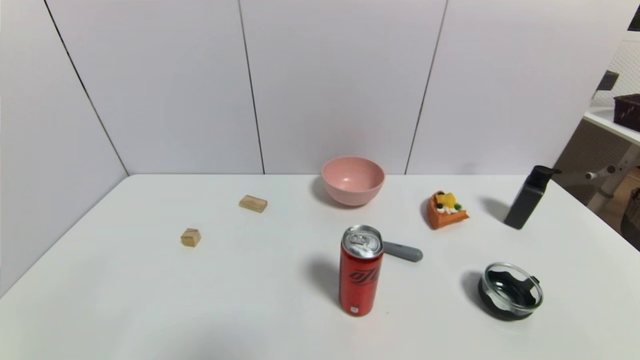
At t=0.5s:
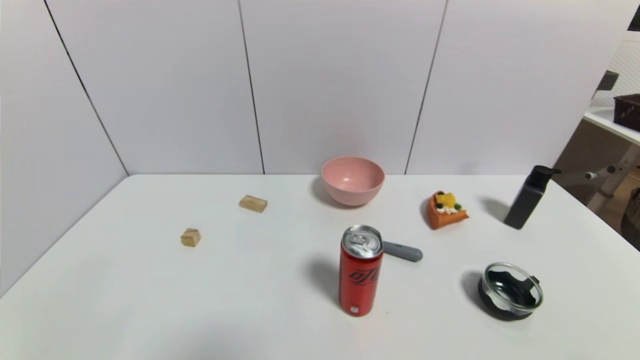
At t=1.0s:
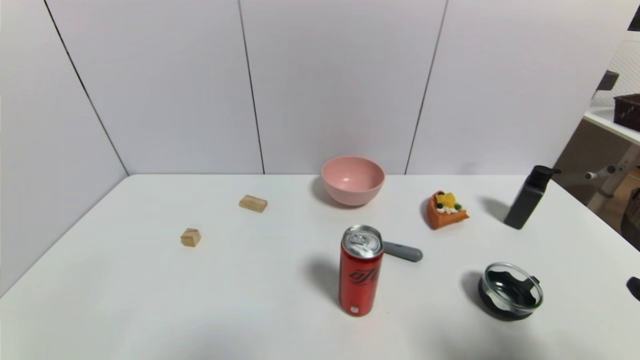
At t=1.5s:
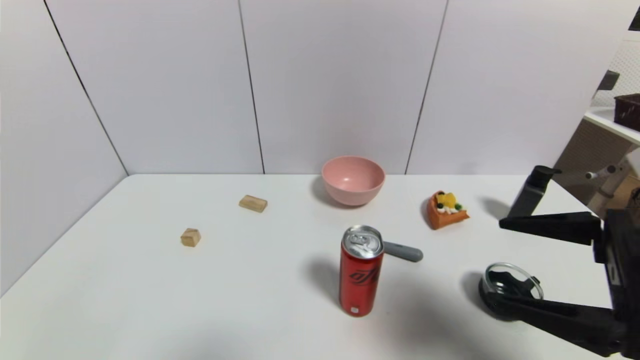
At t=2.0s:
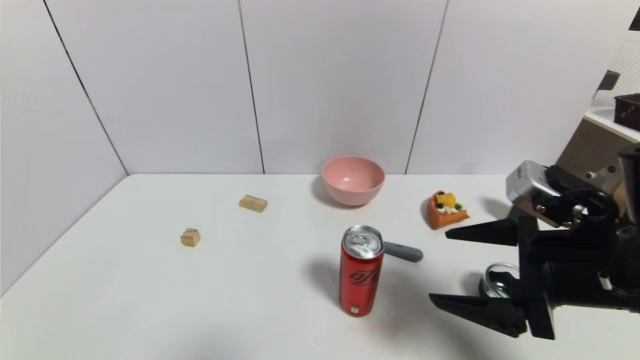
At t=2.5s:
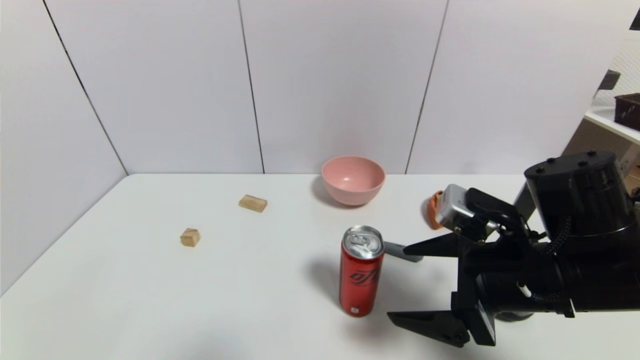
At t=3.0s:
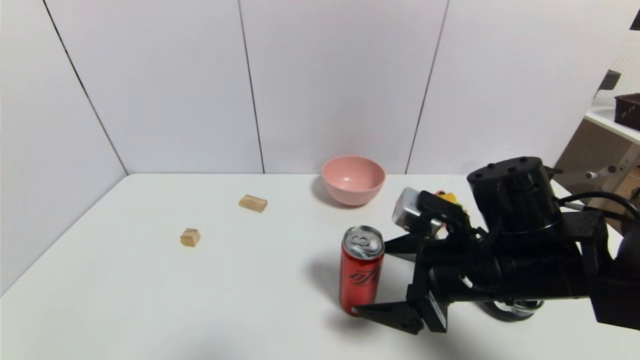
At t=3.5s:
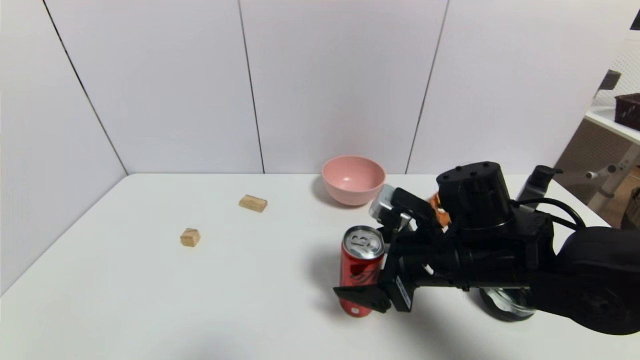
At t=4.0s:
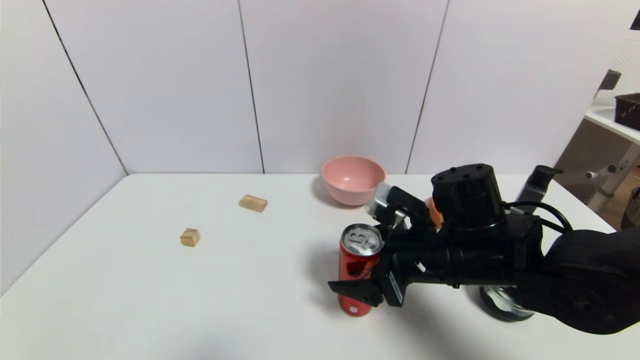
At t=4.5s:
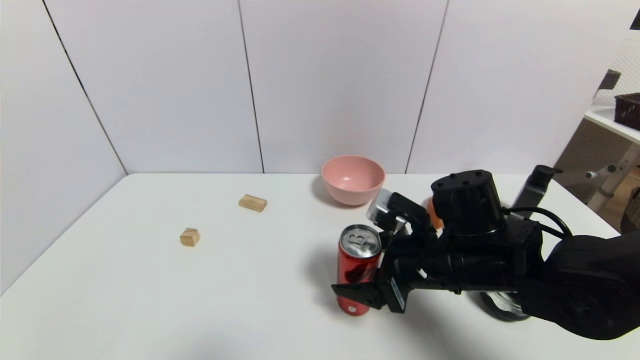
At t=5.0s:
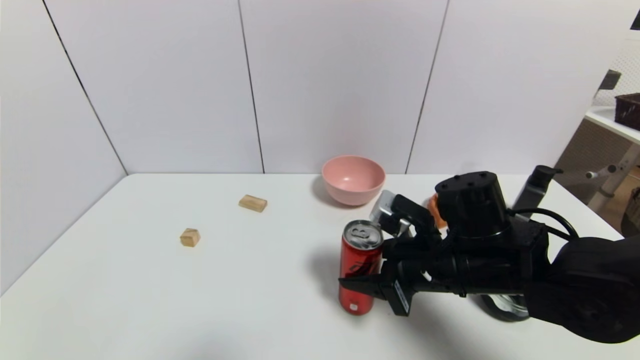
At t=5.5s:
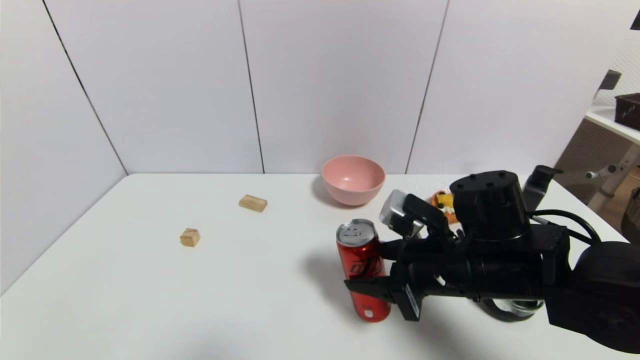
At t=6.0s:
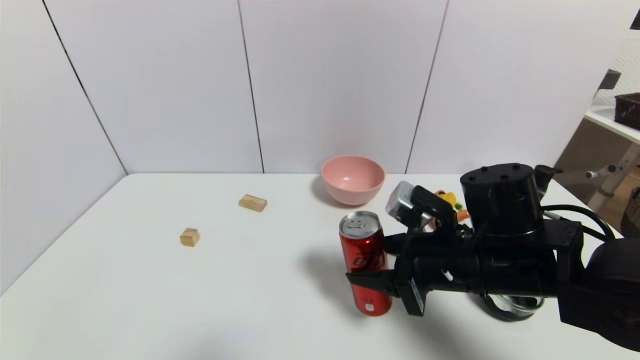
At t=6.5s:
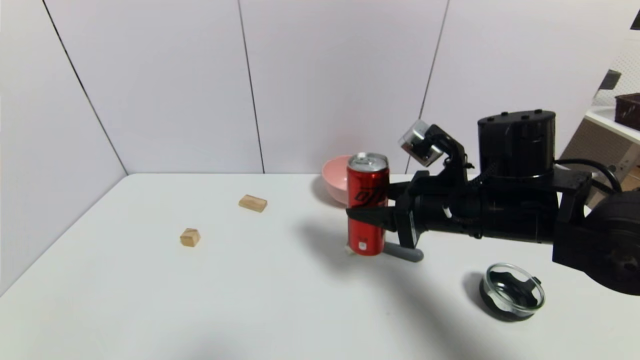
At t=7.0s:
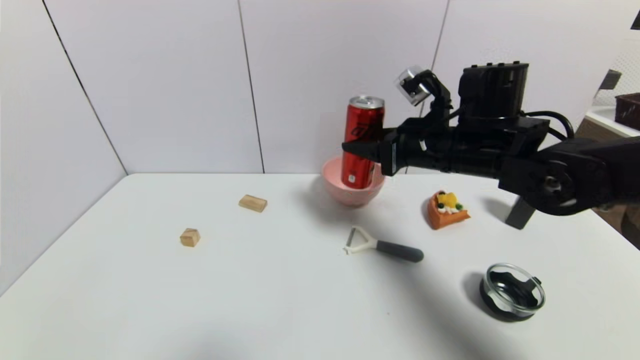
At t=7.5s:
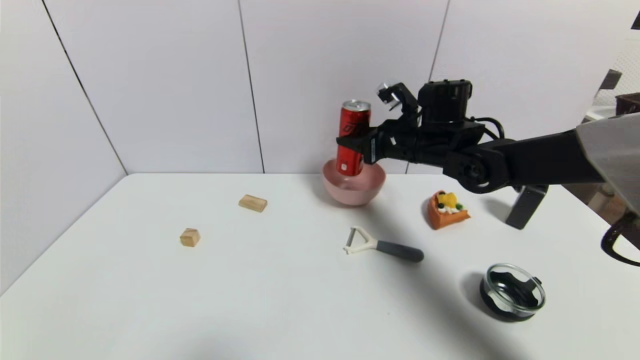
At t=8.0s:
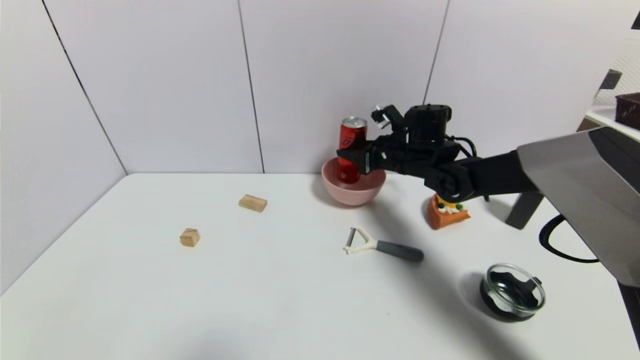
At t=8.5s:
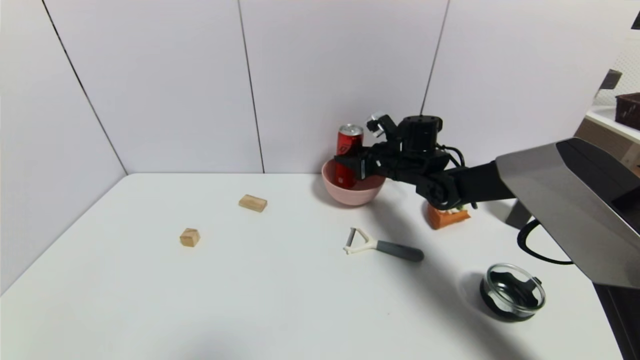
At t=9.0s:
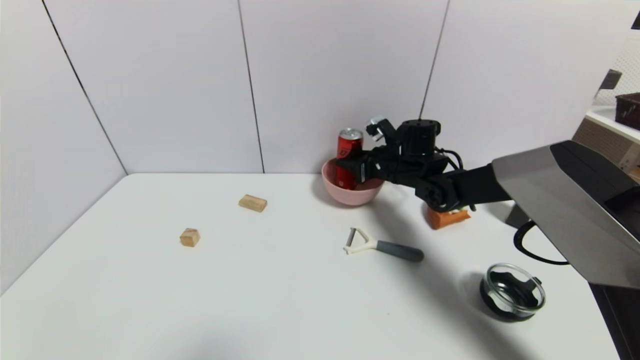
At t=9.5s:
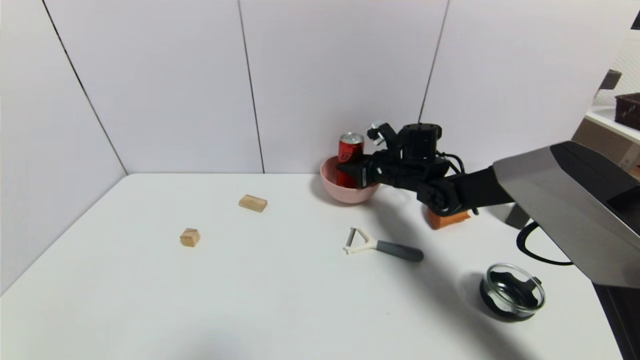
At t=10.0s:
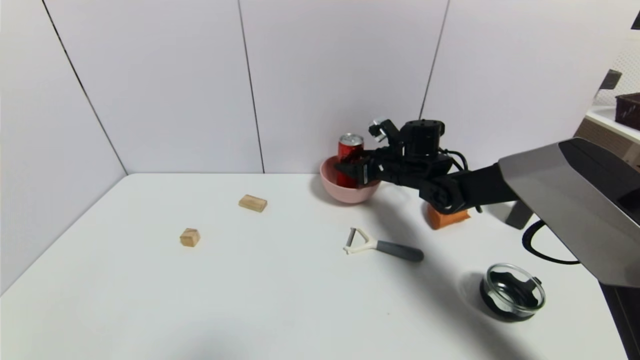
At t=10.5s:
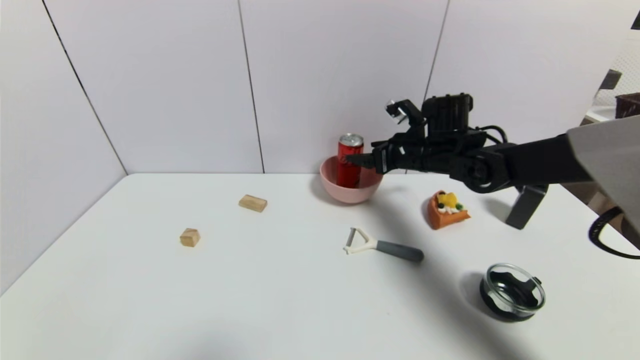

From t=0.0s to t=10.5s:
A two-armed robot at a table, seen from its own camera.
Task of the whole recording: use a gripper to pick the target object and place on the pink bowl.
Step, from t=0.0s to t=4.5s: Grasp the coke with the right gripper.
Step, from t=5.0s to t=10.0s: Place the coke on the pink bowl with the right gripper.
From t=0.0s to t=2.0s: The right gripper moves forward, upward and to the left, roughly 25 cm.
From t=2.0s to t=4.0s: The right gripper travels to the left, forward and downward by roughly 15 cm.
From t=4.0s to t=6.5s: The right gripper is displaced upward by approximately 5 cm, and closes.
From t=6.5s to t=8.5s: The right gripper goes some 20 cm forward.
From t=8.5s to t=10.5s: The right gripper changes place by approximately 5 cm, and opens up.

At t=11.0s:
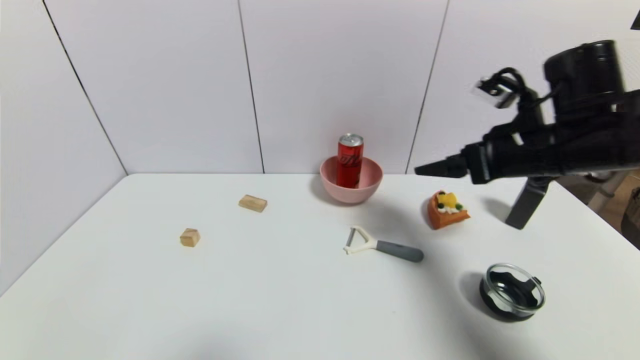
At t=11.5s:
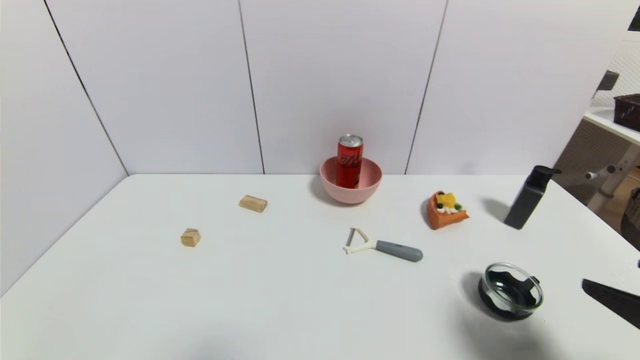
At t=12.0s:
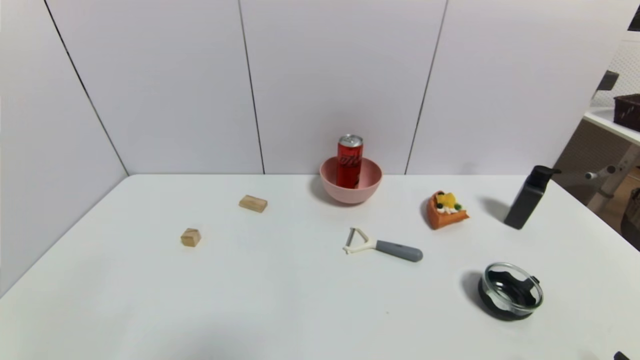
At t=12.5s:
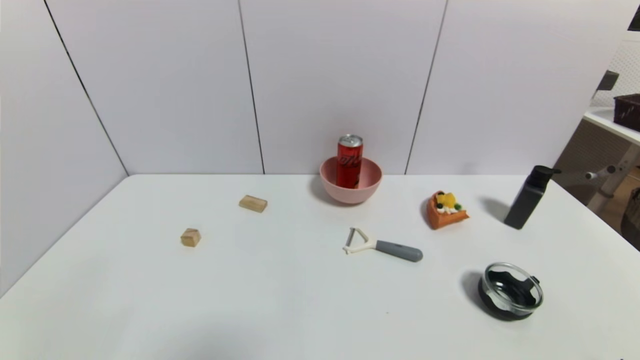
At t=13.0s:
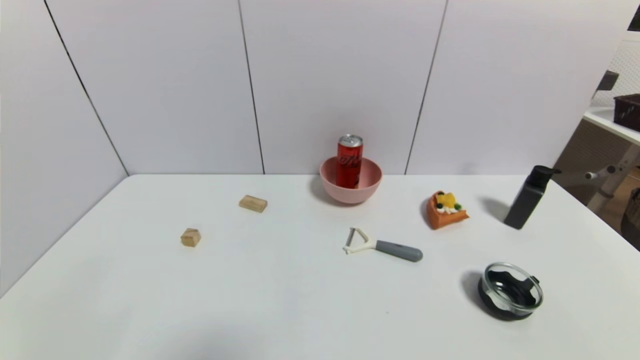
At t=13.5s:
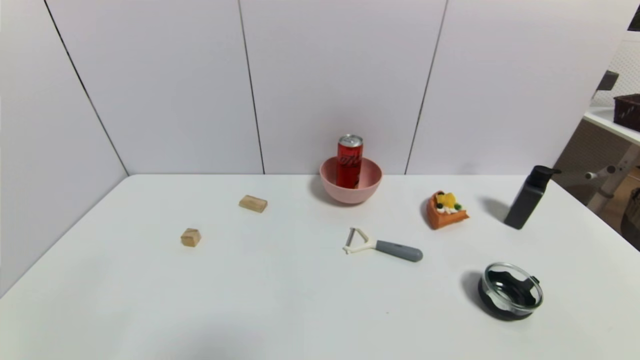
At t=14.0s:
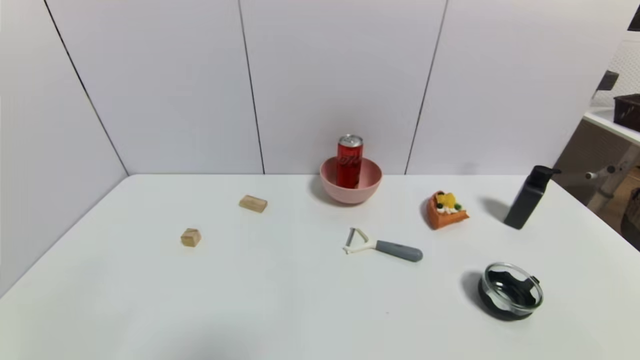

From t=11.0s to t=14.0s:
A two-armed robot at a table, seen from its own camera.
Task of the whole recording: use a gripper to pick the target object and place on the pink bowl.
From t=11.0s to t=12.5s: The right gripper is displaced backward and downward by roughly 30 cm.
